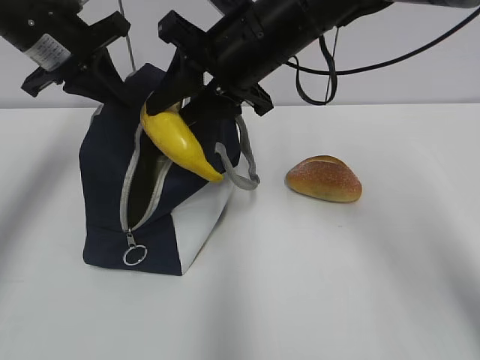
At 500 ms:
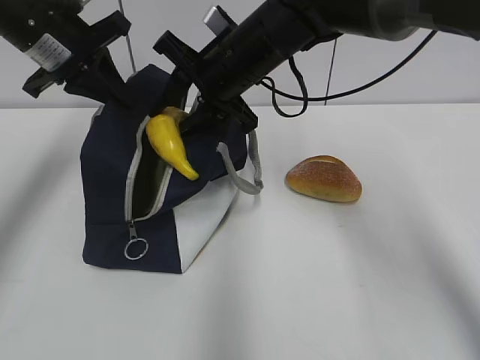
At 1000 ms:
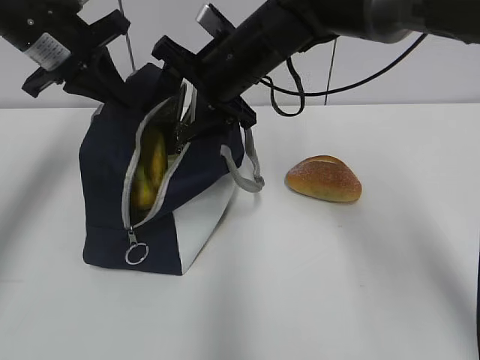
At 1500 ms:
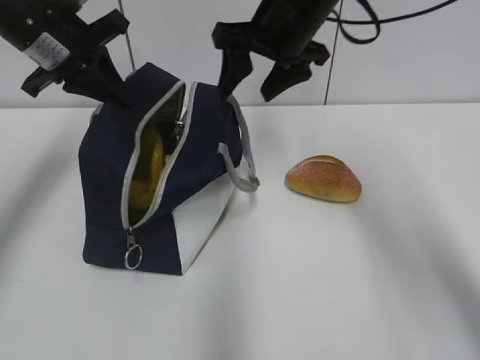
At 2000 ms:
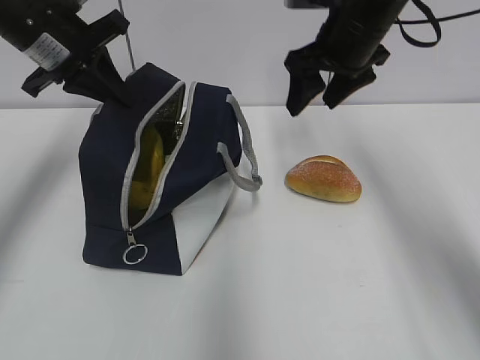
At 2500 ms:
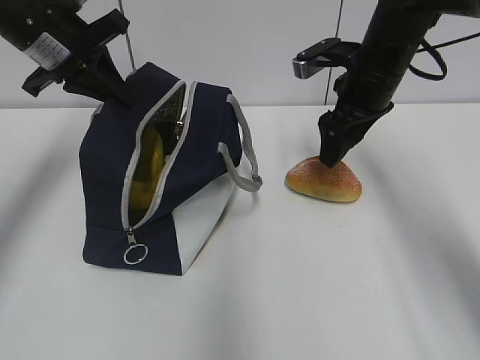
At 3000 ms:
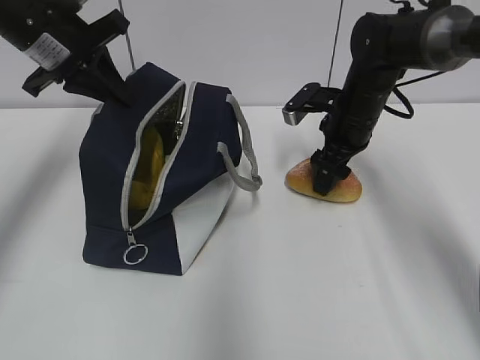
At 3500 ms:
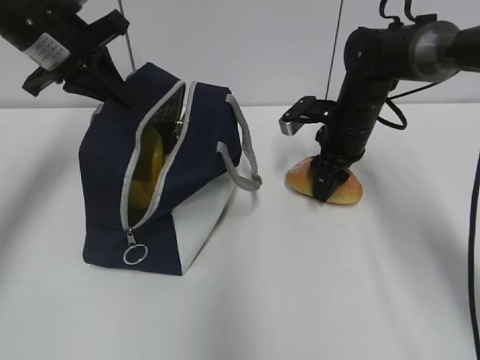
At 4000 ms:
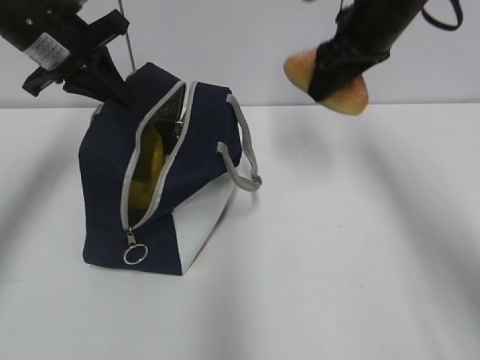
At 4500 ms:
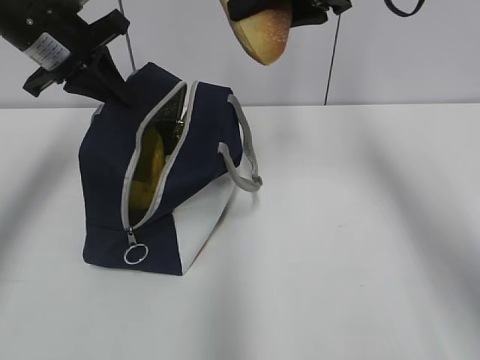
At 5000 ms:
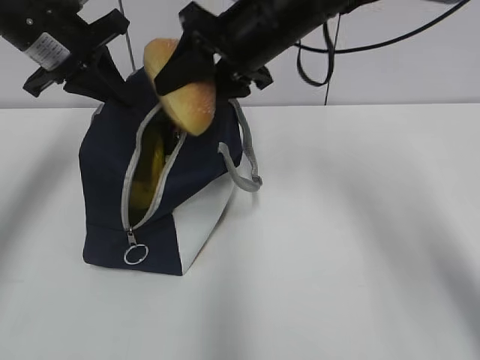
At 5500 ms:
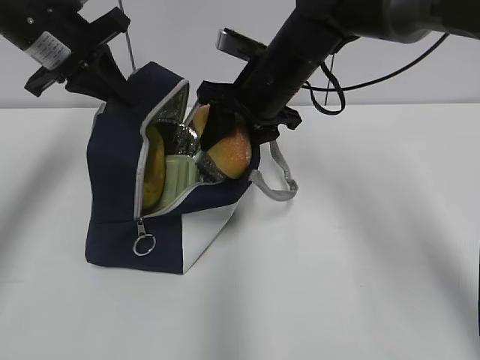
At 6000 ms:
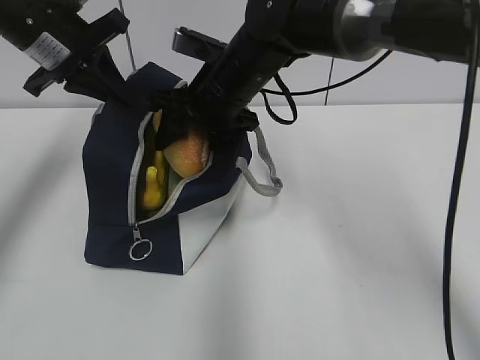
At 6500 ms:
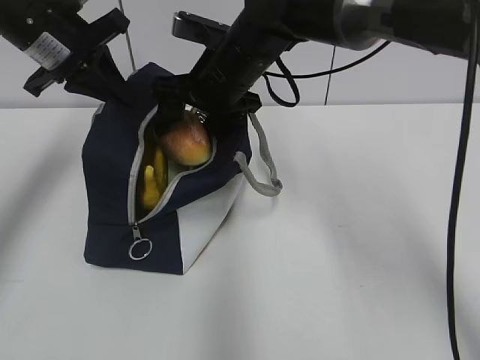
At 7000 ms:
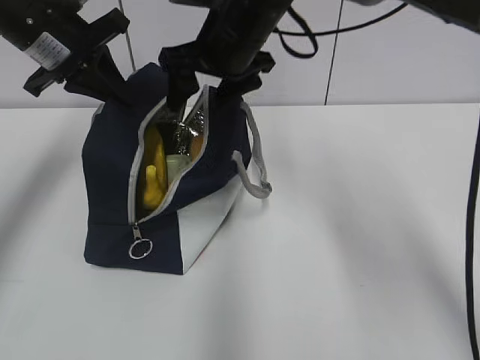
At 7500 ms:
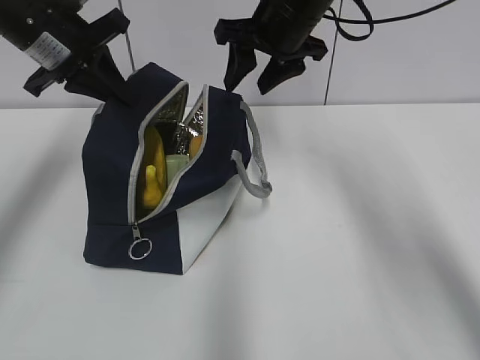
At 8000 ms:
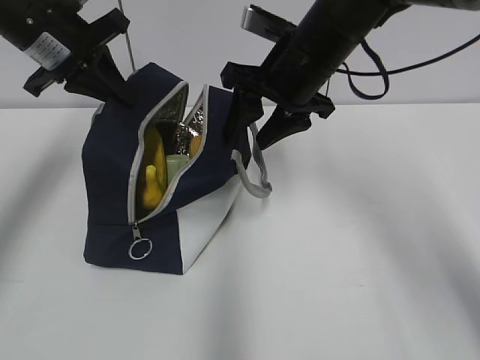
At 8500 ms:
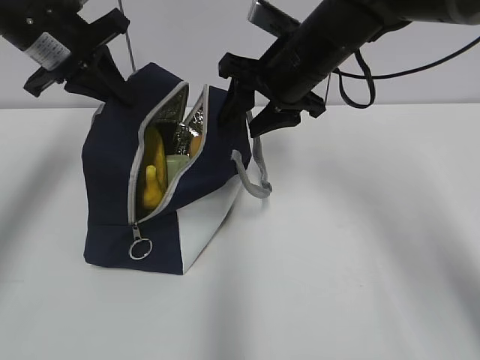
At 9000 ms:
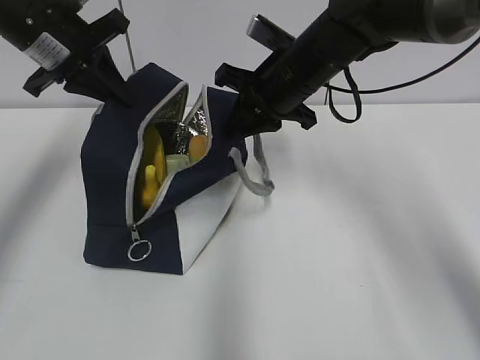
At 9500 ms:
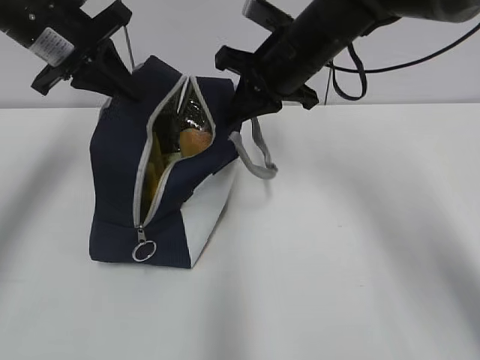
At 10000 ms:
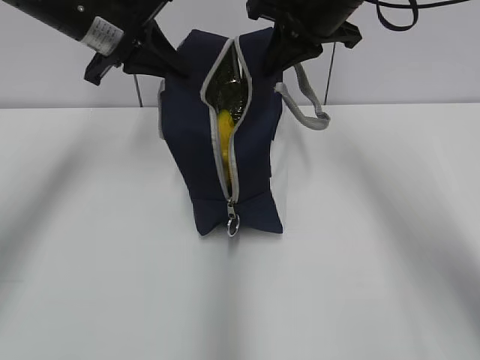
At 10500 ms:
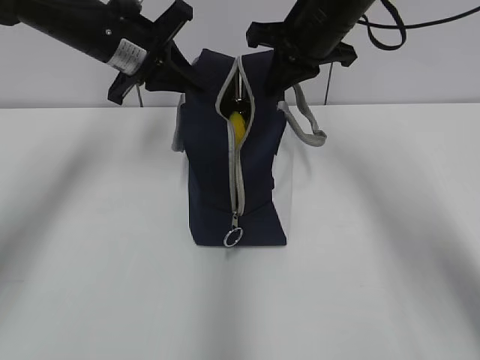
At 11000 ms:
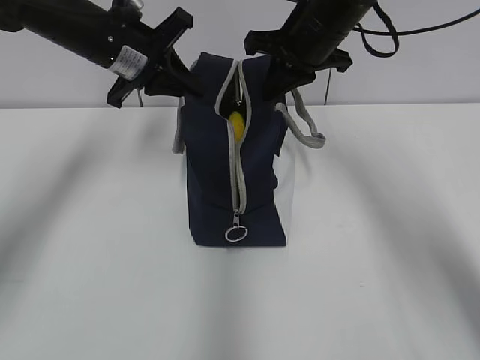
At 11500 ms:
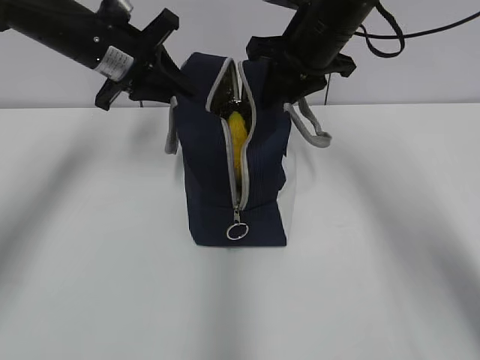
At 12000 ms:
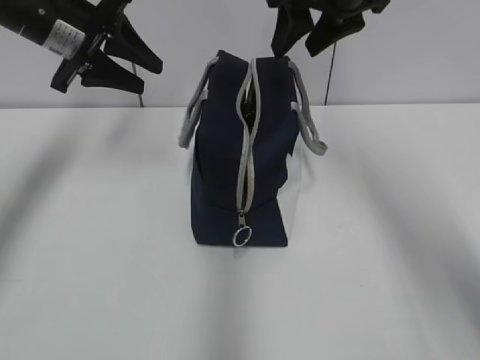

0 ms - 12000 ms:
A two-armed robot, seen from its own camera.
Step, 1500 ms - 3000 ms: Grab the bread with your right hand.
Step, 7000 ms - 9000 ms: Grab the lunch bag with your right hand.
Step, 9500 ms - 11000 ms: Move the lunch bag to the right.
0 ms - 2000 ms: The right gripper moves to the right and forward, roughly 15 cm, and opens its fingers.
2000 ms - 4000 ms: The right gripper moves approximately 15 cm downward and comes back.
4000 ms - 6000 ms: The right gripper moves to the left and downward, some 15 cm.
6000 ms - 8000 ms: The right gripper travels to the right by approximately 10 cm.
8000 ms - 10000 ms: The right gripper is displaced upward by approximately 5 cm, and closes; the left gripper changes place by roughly 5 cm.
10000 ms - 12000 ms: The right gripper opens its fingers. The left gripper opens up.

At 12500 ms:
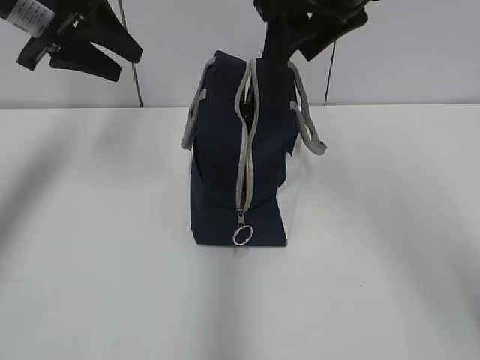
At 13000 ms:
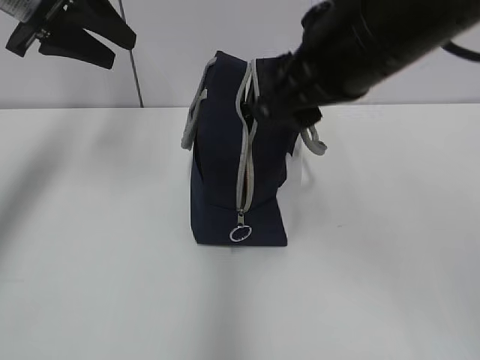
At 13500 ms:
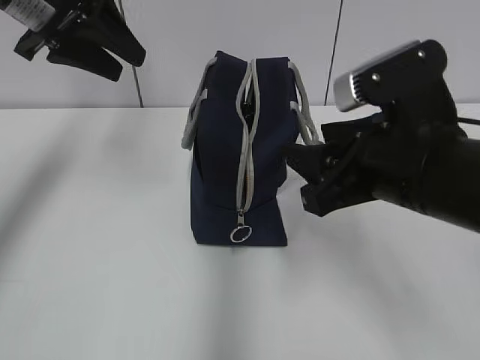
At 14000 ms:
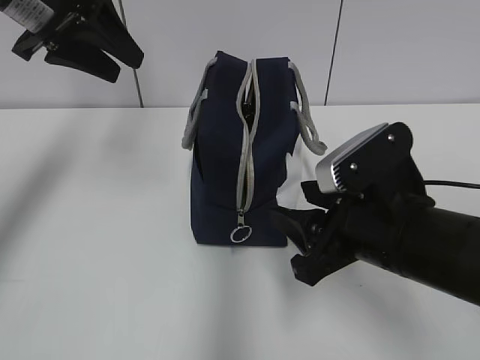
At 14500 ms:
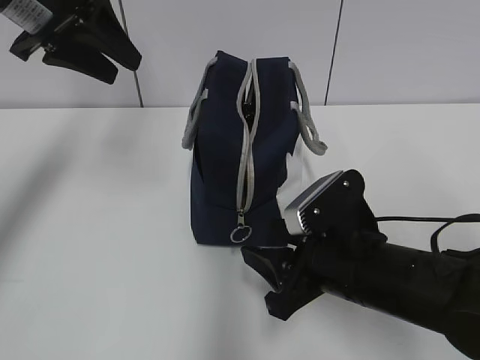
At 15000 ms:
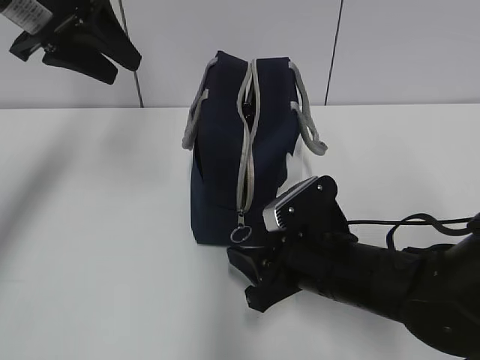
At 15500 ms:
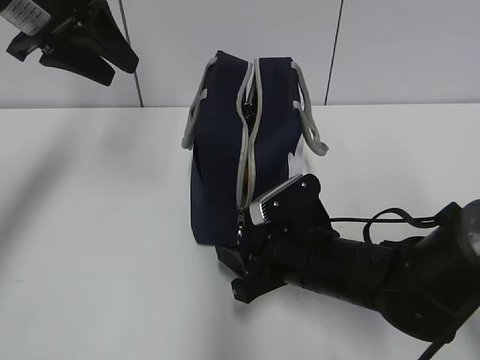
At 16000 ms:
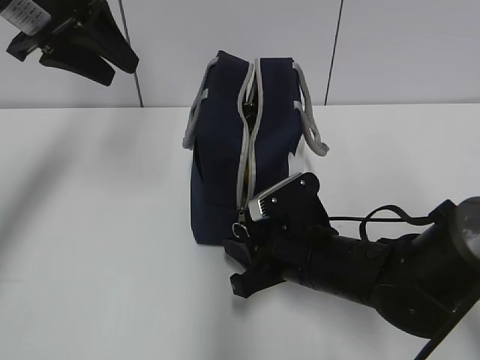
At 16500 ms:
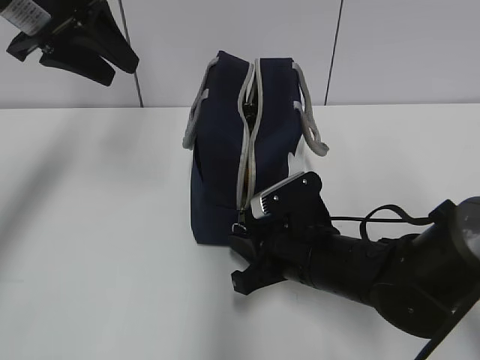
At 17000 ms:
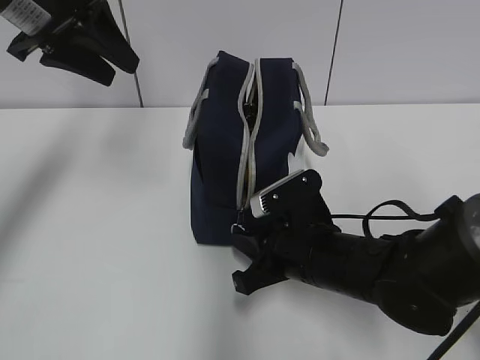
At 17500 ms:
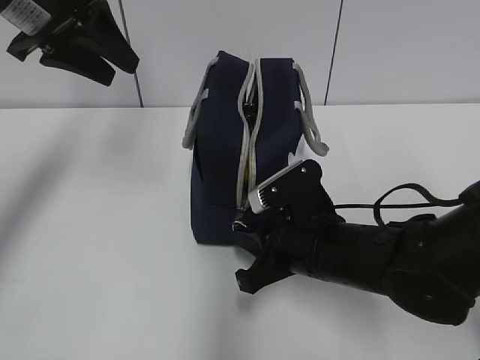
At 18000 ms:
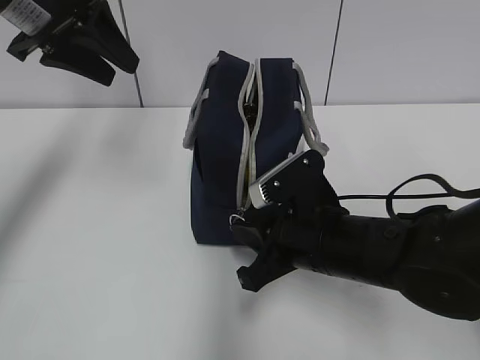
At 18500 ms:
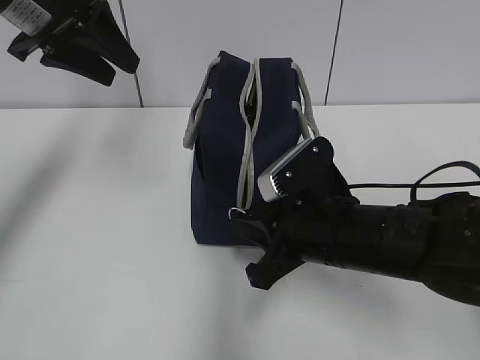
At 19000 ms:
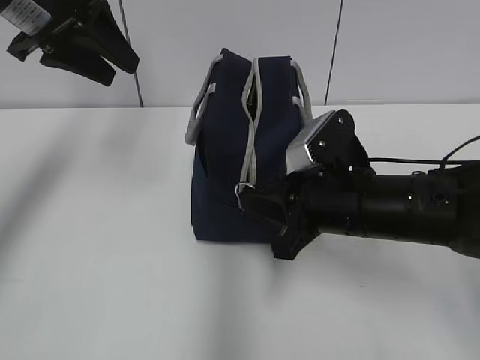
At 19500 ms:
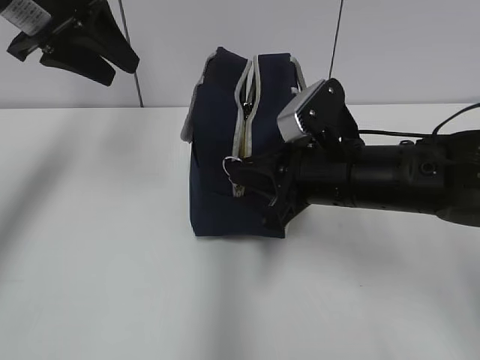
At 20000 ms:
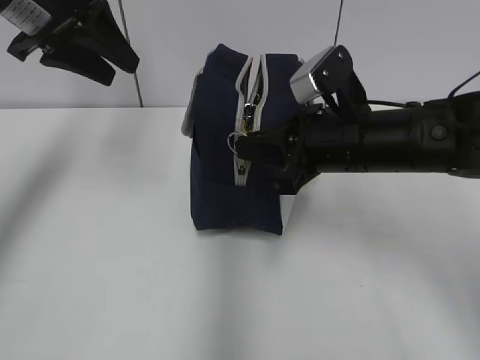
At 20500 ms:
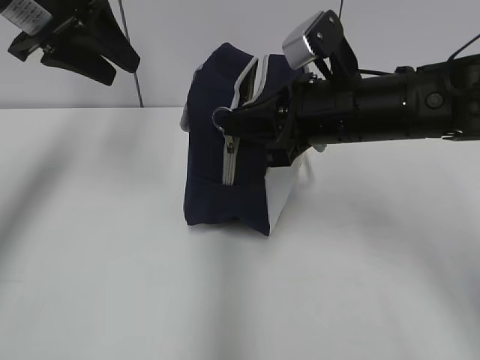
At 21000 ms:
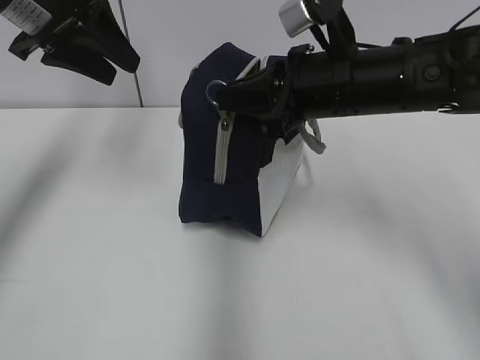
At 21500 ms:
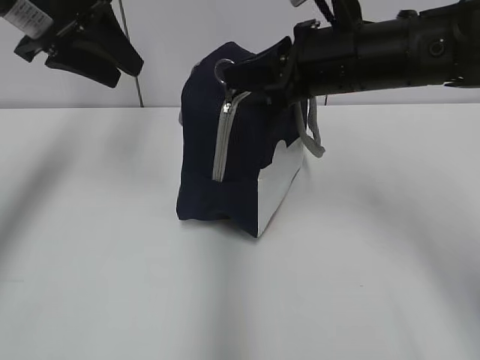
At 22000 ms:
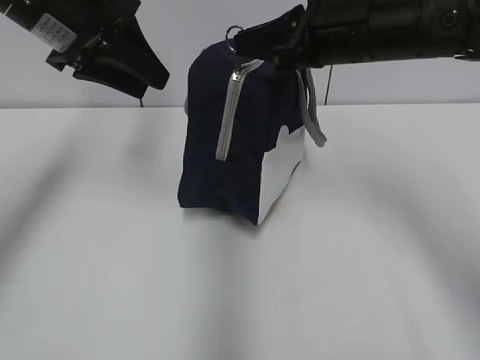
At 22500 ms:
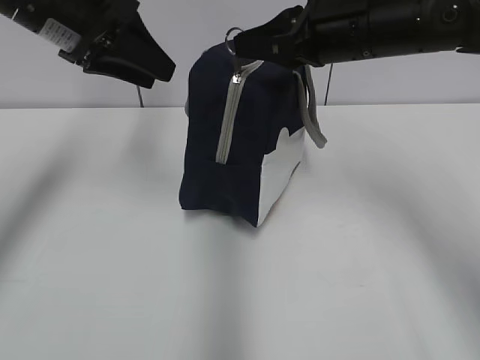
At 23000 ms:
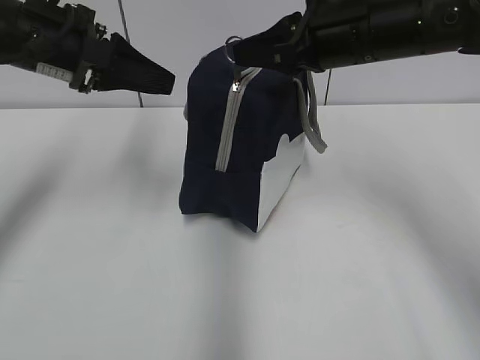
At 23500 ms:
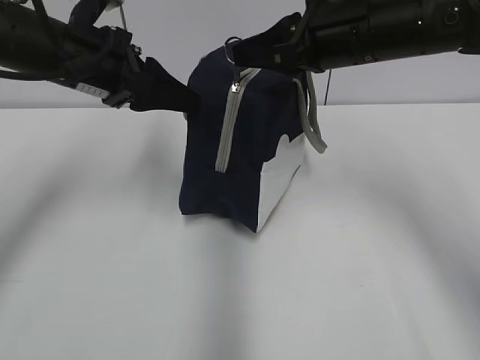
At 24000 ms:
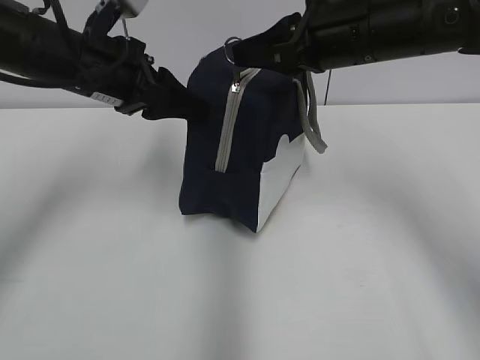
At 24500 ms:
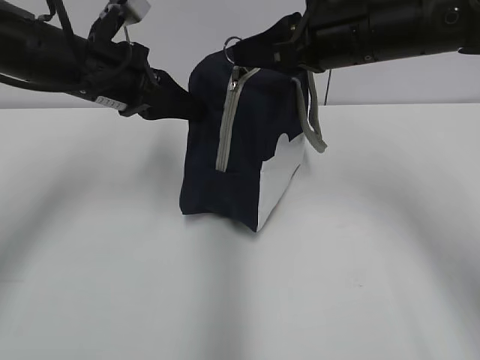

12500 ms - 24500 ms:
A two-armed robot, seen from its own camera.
12500 ms - 14500 ms: The right gripper travels downward and backward by approximately 30 cm.
14500 ms - 16500 ms: The right gripper shifts by some 5 cm, and closes its fingers.
16500 ms - 18500 ms: The right gripper shifts approximately 5 cm upward.
18500 ms - 20500 ms: The right gripper travels upward and forward by approximately 10 cm.
20500 ms - 22500 ms: The right gripper moves upward, approximately 5 cm.
22500 ms - 24500 ms: The left gripper goes roughly 5 cm downward, and closes.

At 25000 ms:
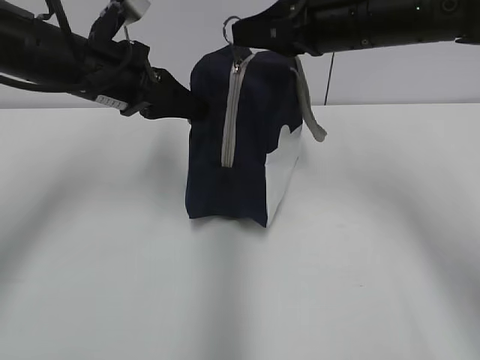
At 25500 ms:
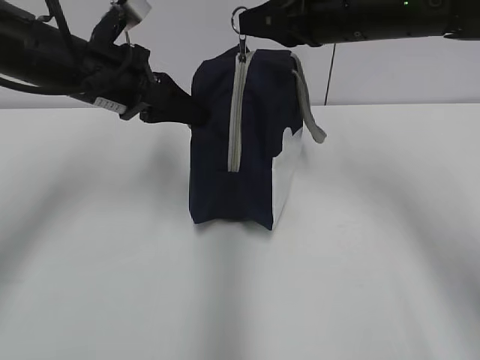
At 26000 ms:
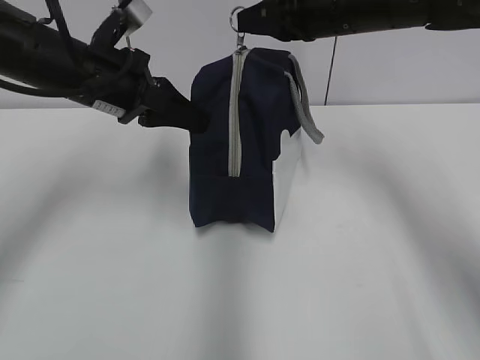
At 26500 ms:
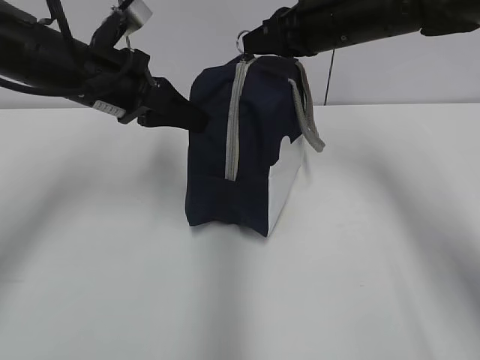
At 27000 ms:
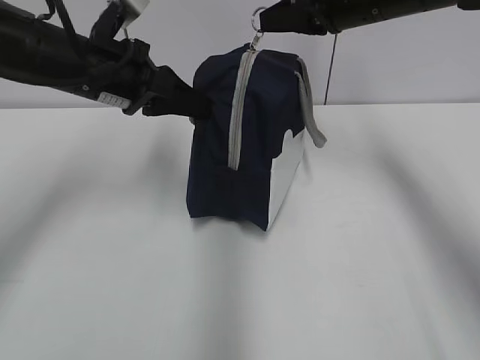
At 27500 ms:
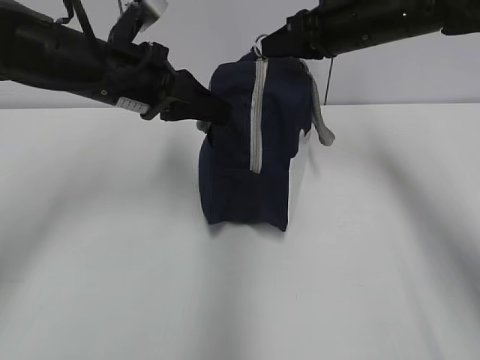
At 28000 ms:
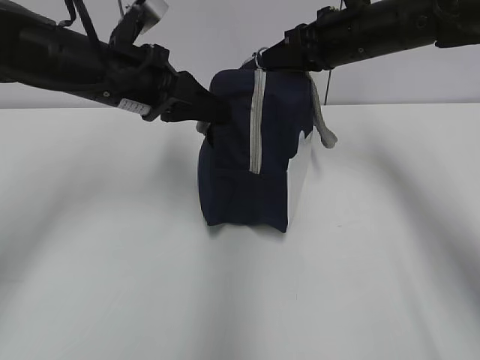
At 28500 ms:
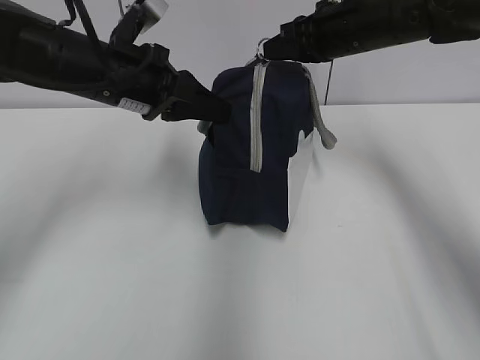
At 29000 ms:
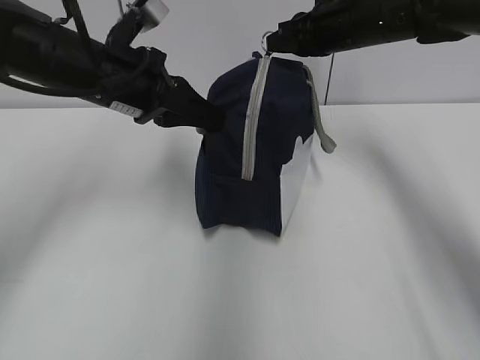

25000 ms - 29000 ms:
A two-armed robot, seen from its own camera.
25000 ms - 27000 ms: The right gripper travels forward by about 5 cm.
27000 ms - 29000 ms: The right gripper travels forward by approximately 5 cm.
